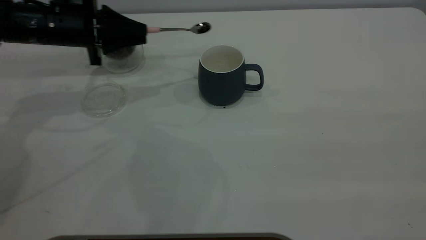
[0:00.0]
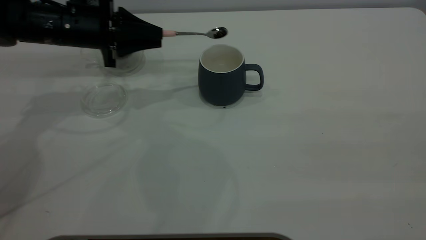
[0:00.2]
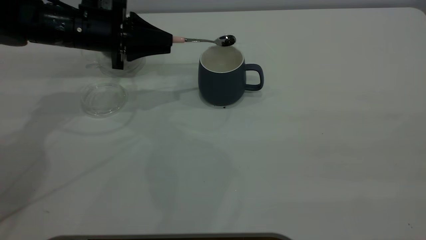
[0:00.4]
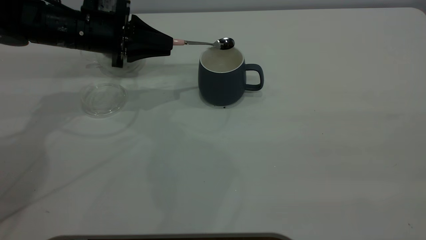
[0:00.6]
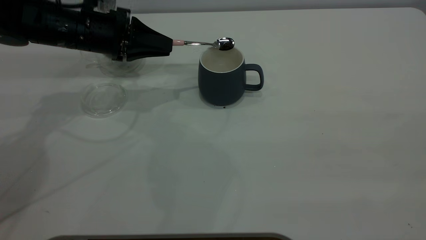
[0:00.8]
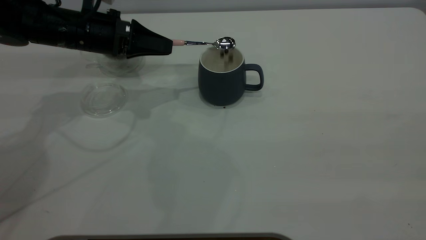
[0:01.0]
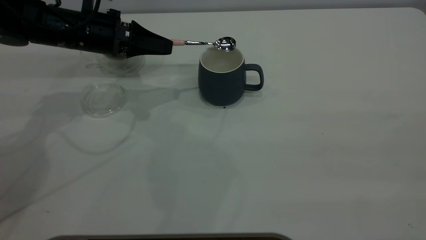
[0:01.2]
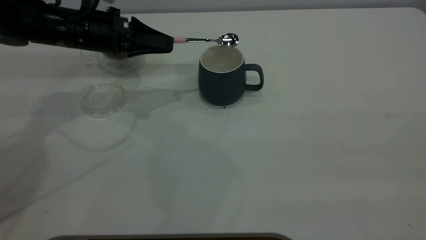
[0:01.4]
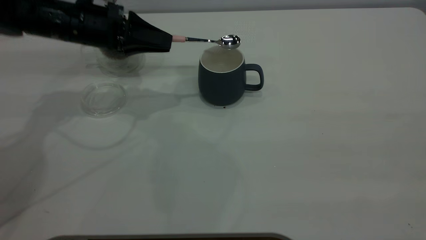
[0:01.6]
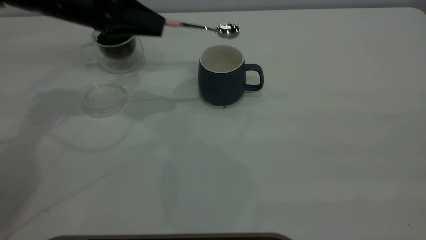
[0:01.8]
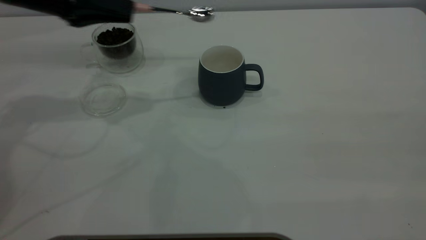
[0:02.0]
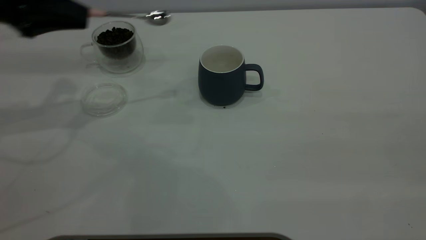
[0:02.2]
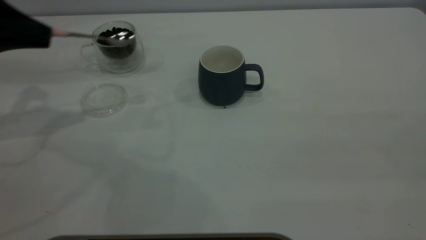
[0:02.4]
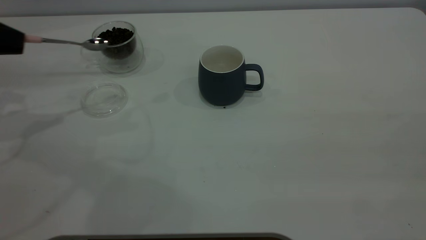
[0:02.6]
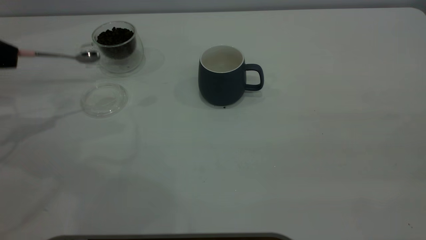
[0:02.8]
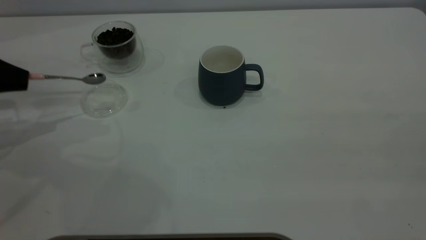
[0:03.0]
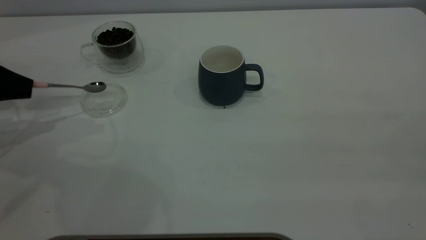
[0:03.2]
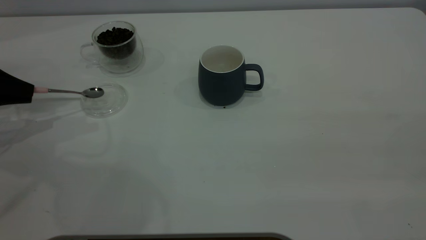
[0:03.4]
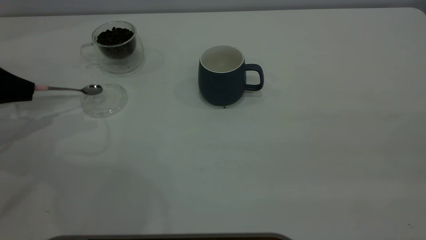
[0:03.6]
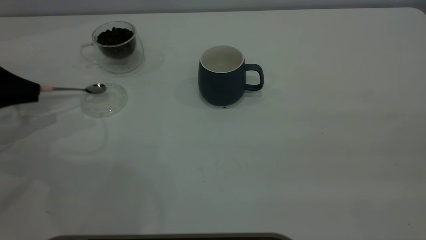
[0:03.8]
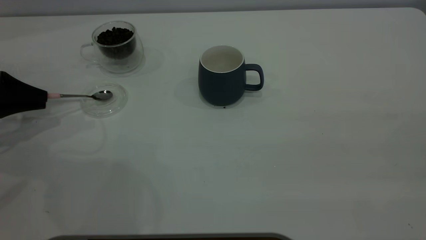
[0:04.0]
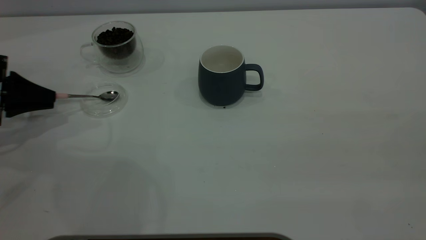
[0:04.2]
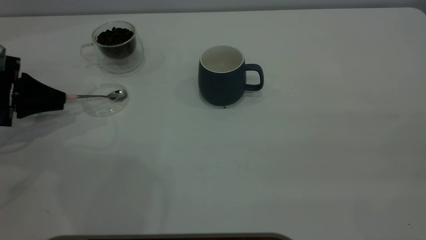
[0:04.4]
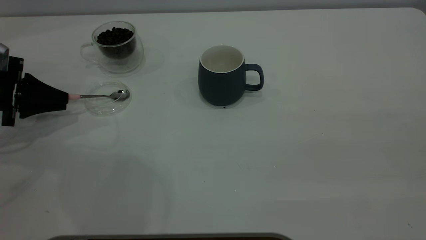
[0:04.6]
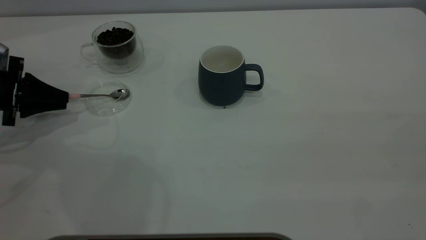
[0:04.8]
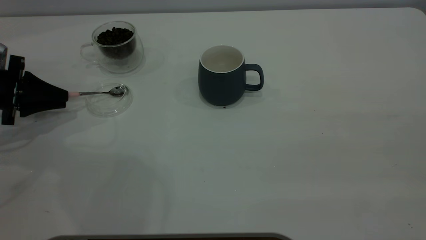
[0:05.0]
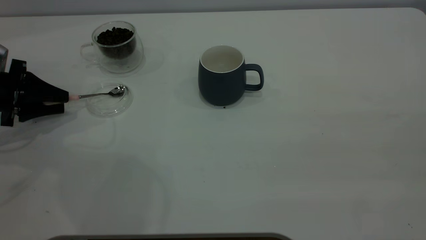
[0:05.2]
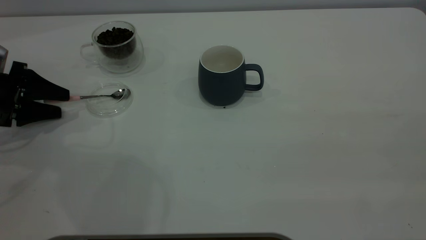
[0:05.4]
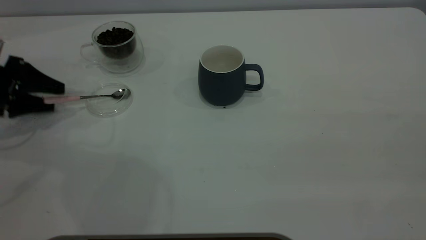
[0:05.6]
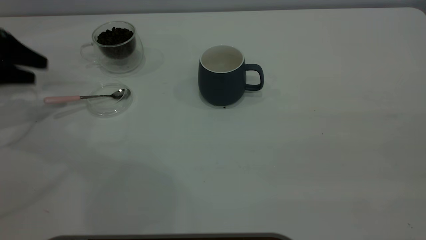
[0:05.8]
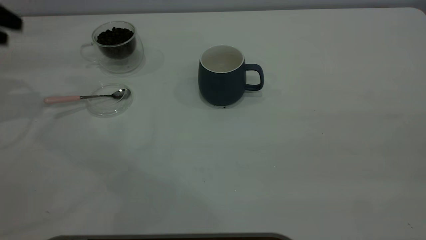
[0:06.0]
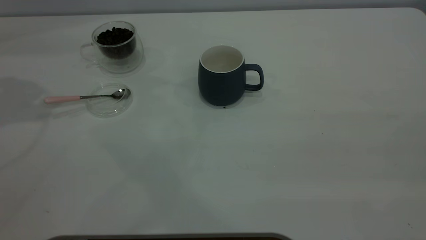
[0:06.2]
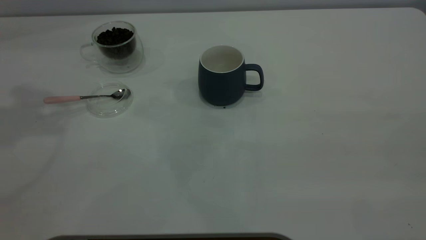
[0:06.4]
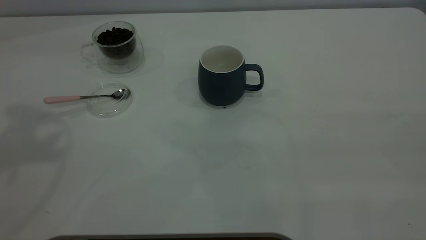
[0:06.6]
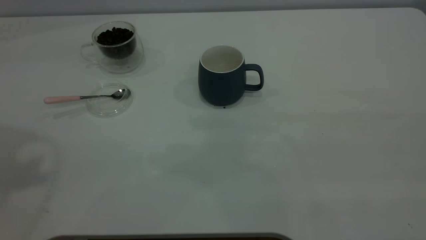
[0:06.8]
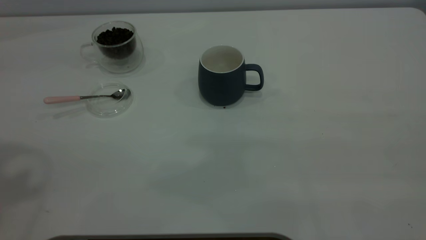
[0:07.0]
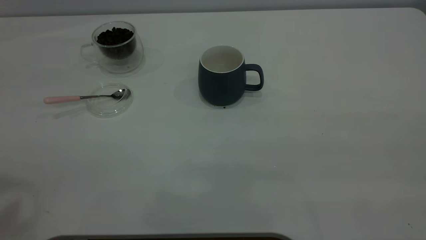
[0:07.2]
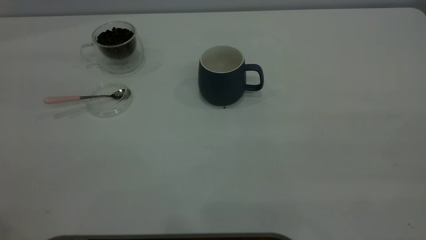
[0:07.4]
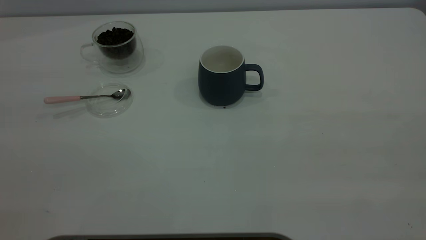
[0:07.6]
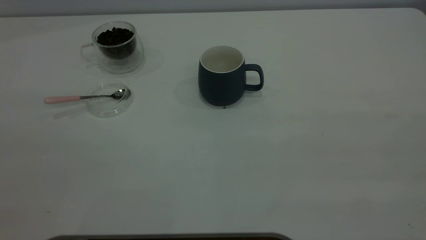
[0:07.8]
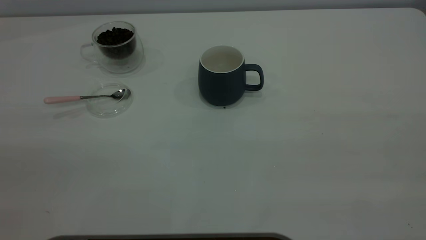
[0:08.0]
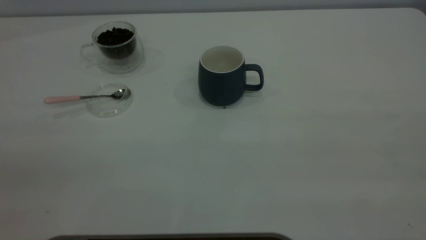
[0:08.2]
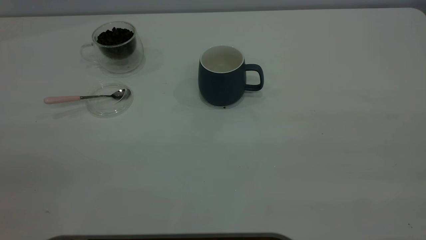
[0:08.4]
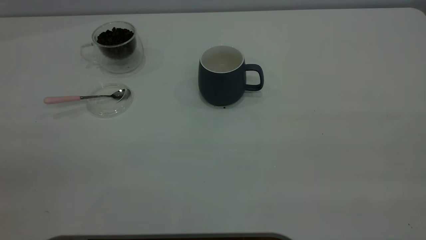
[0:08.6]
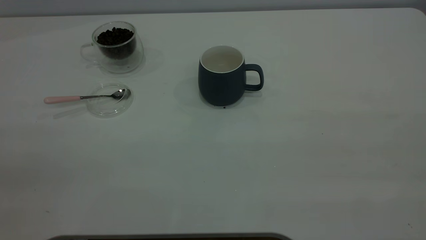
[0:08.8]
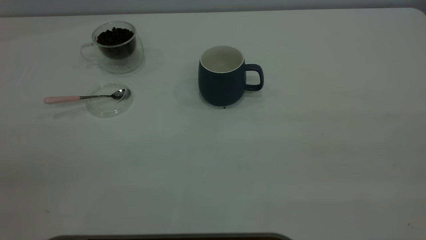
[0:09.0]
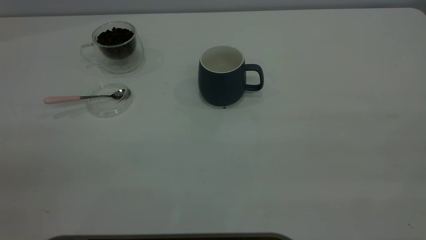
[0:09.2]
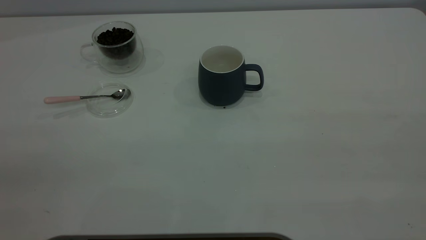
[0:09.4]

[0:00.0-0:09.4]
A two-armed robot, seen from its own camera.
Task of the whole recording: the right gripper place the grey cup in the center of the table, the left gripper take the pink spoon from the cup lid and scoop out the coffee beans from the coffee cup and put them into the grey cup, the left gripper put the spoon back into the cup lid.
Step, 0:01.8 to 0:05.6: Place the spoon back in its original place.
0:01.6 to 0:03.2: The left gripper moves to the left, roughly 20 cm.
0:03.2 to 0:04.8: The left gripper moves roughly 5 cm.
0:04.8 to 0:06.2: The left gripper moves upward, about 25 cm, and opens.
